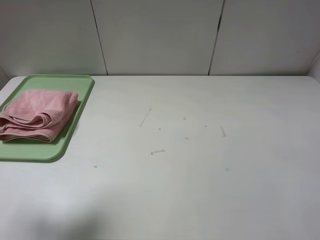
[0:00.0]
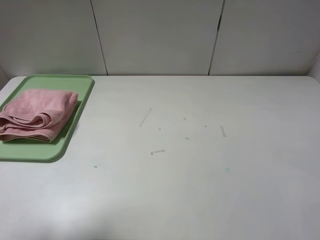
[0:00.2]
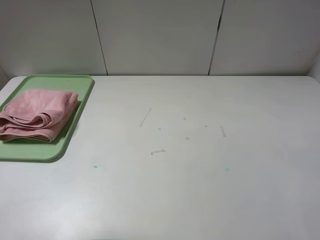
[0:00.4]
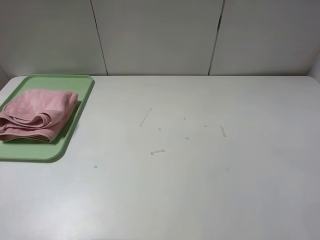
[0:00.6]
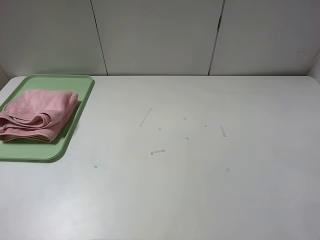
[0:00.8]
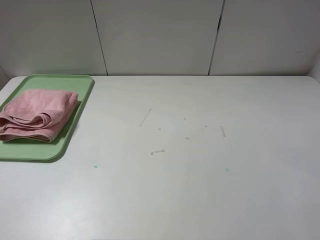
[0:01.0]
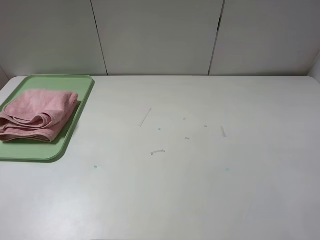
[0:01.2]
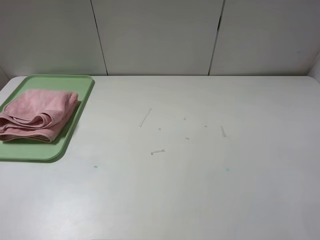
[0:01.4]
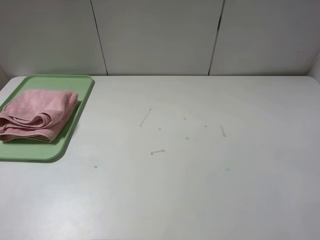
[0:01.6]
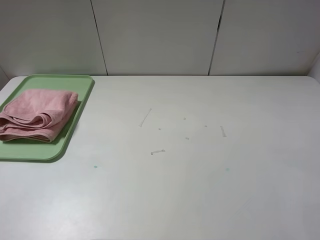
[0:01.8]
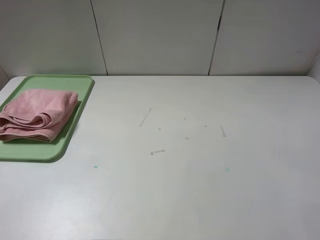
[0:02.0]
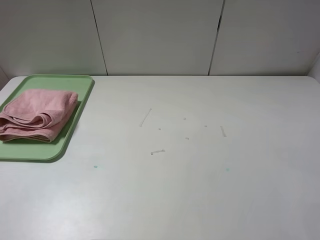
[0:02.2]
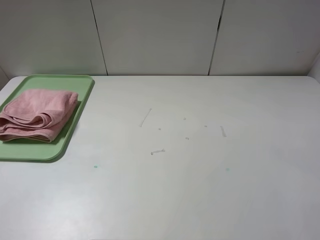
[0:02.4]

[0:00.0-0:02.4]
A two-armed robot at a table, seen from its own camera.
0:00.0 to 0:01.2: The left gripper heads backward and downward, covering some 15 cm.
0:01.2 to 0:02.4: Neither gripper changes place.
